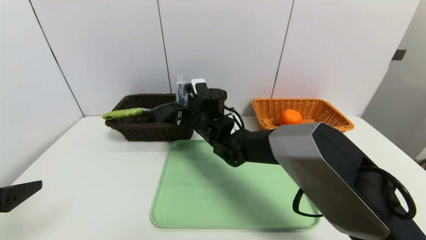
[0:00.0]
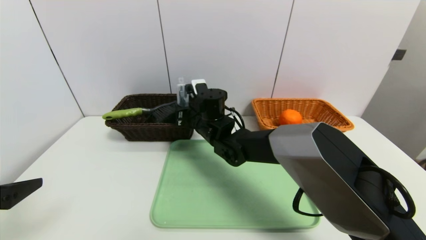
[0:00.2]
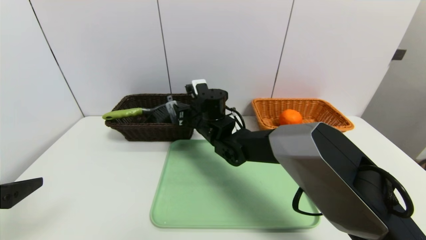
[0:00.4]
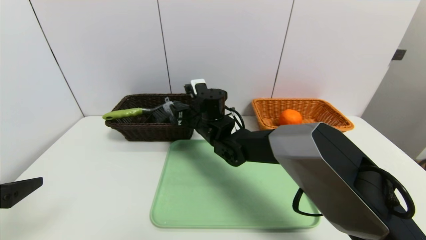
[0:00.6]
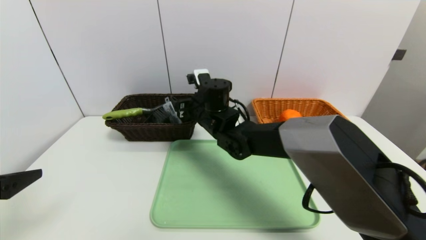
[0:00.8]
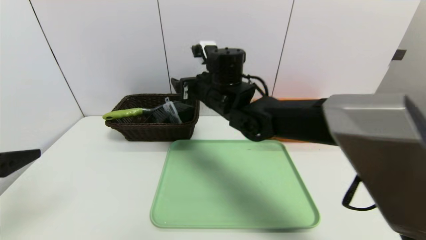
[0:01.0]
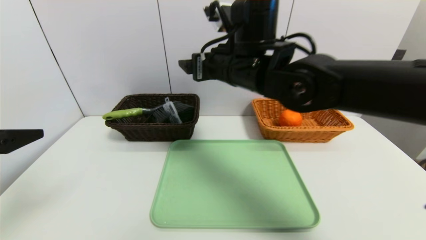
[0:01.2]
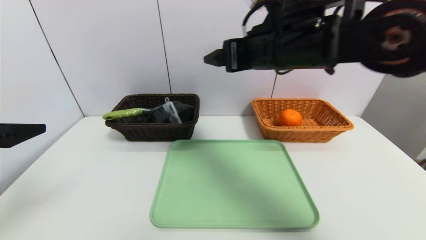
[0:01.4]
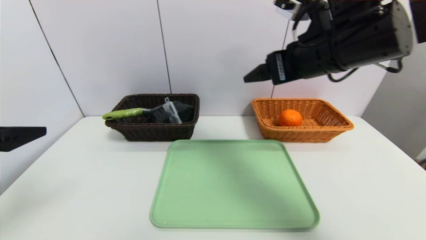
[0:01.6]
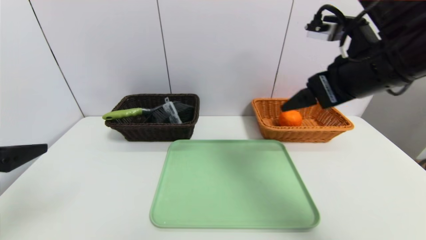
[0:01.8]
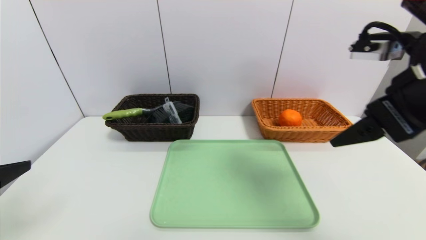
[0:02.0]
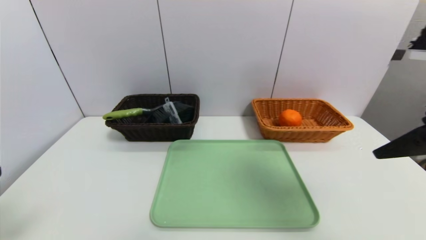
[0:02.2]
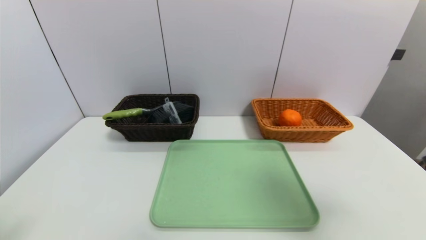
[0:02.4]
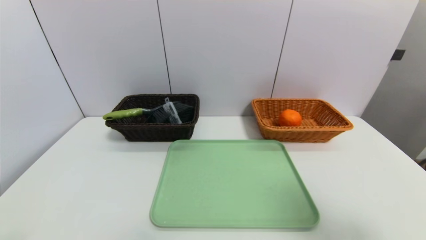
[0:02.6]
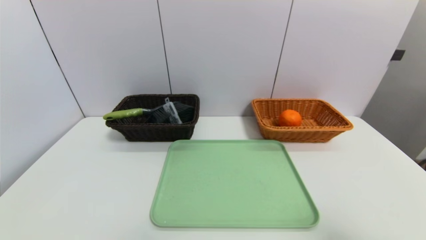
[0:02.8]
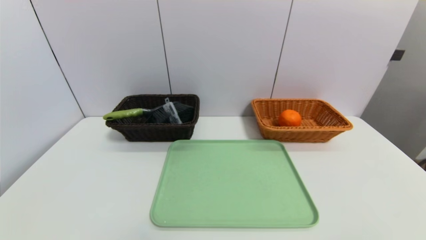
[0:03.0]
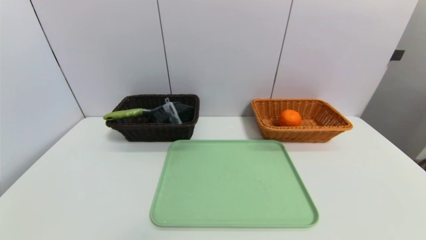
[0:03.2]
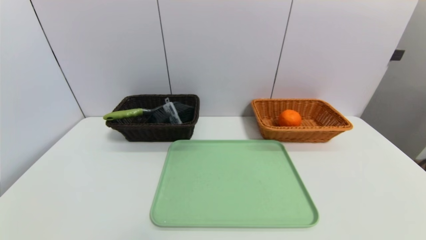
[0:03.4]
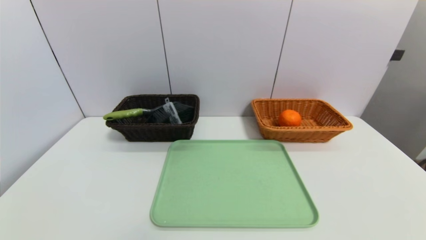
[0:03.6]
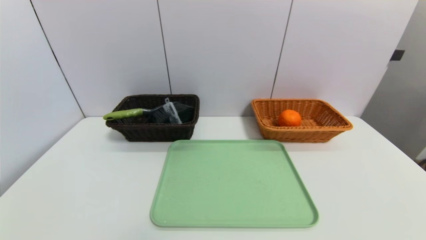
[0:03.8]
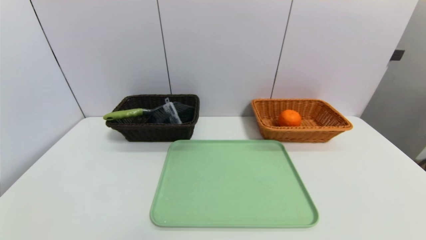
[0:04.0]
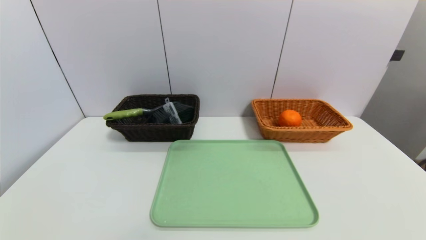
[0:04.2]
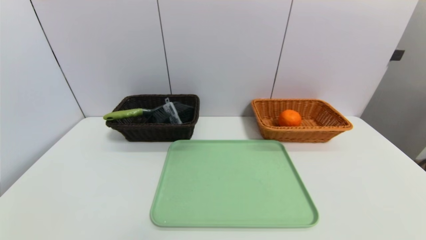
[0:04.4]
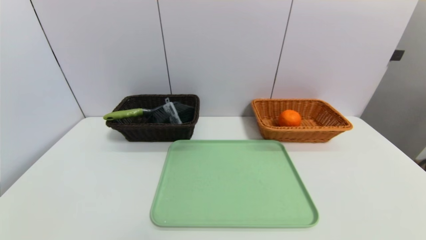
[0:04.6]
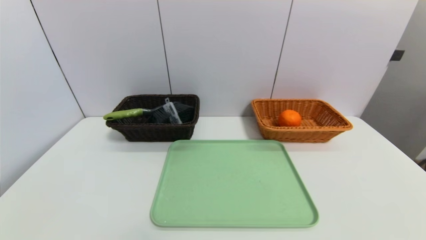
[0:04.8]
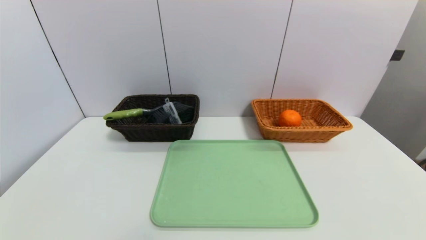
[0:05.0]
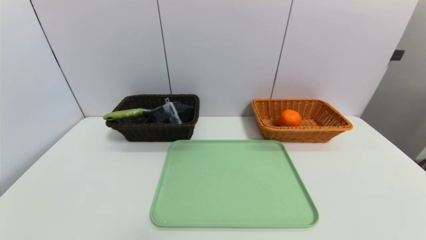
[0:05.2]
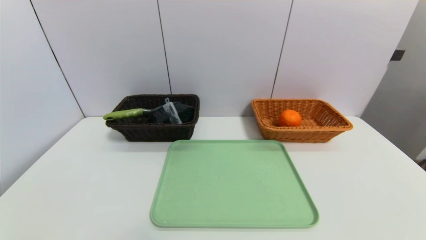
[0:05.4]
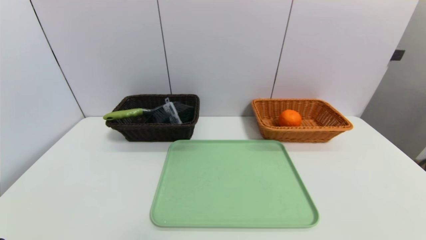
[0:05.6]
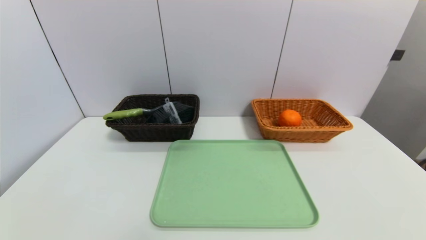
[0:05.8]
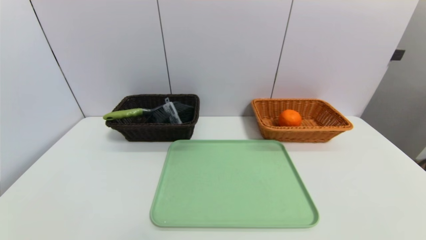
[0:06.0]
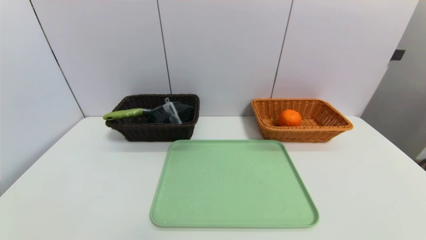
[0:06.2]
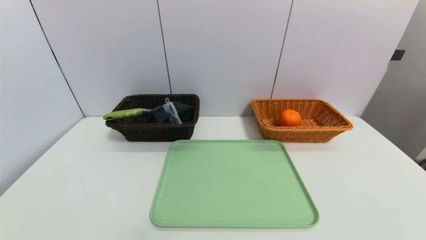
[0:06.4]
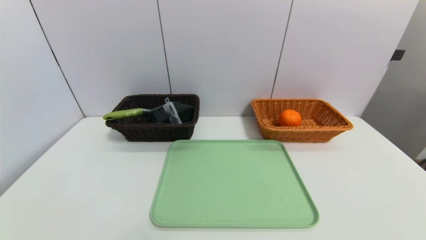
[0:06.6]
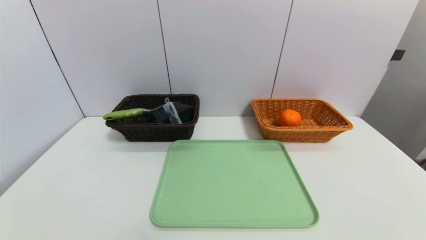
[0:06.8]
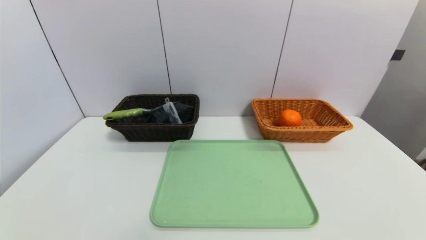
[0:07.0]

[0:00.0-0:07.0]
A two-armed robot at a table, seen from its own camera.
Task of the whole recording: place the food in the right basket with the right gripper, and place the non food items in the left basket with the left gripper.
0:00.0 to 0:01.4: The left gripper is displaced upward by roughly 5 cm; the right gripper goes some 25 cm upward, to the right and backward, and opens its fingers.
0:01.4 to 0:02.8: The right gripper heads backward and to the right, covering about 35 cm. Meanwhile the left gripper heads backward and downward, covering some 20 cm.
